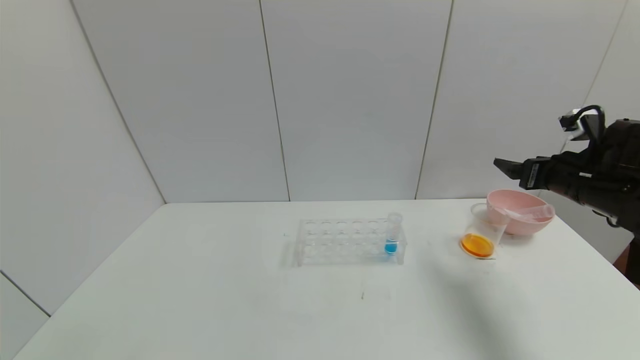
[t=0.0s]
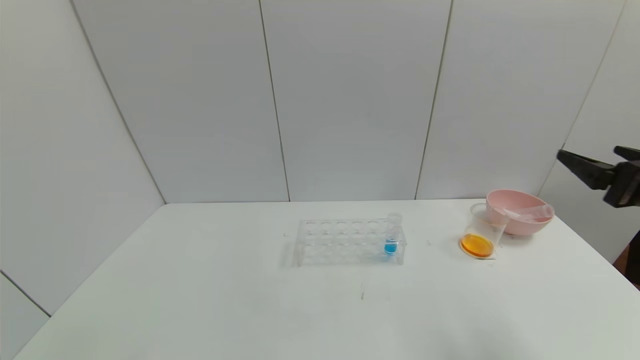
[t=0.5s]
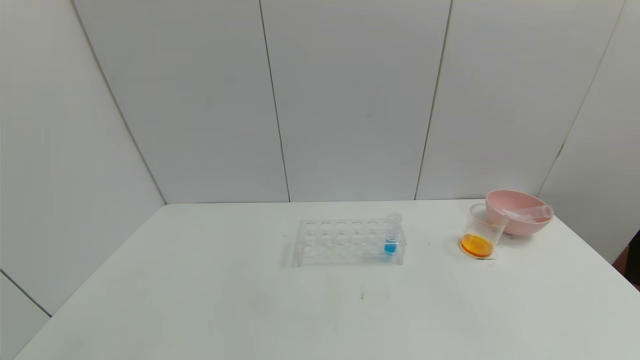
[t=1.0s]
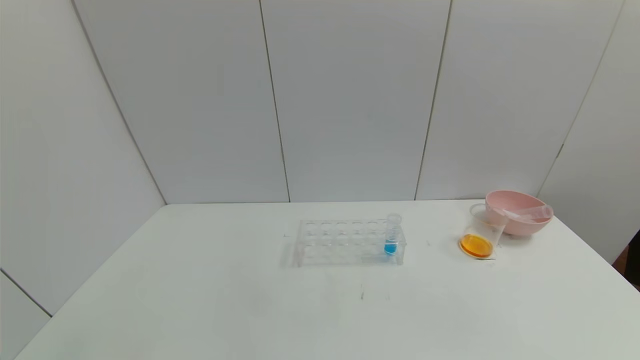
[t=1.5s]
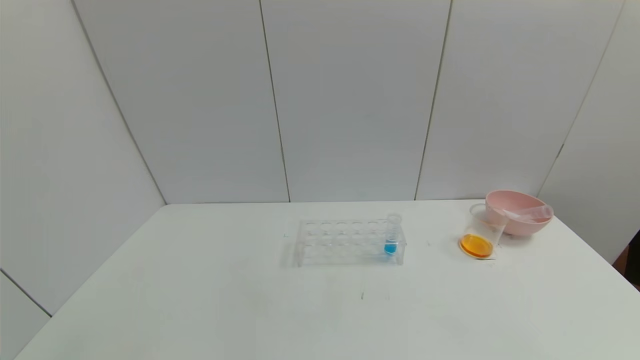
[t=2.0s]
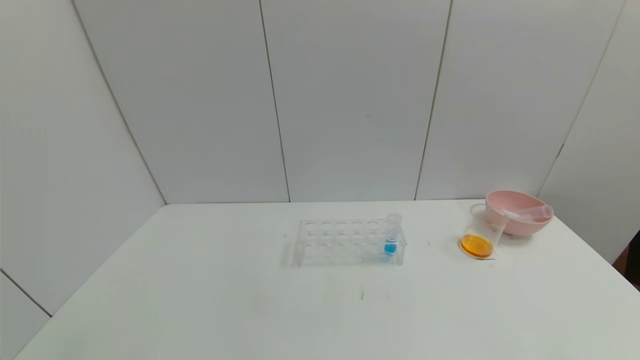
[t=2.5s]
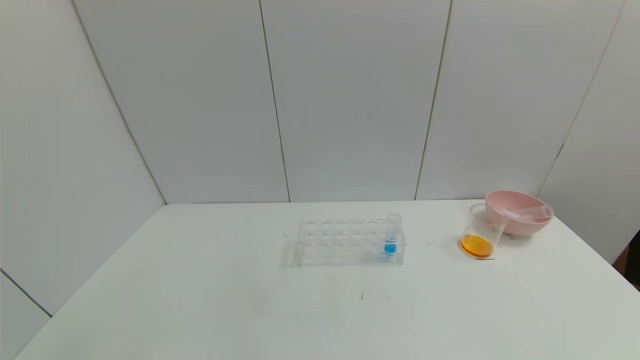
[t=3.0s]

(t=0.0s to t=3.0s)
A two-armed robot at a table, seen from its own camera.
Task of the whole recording: pick up the test tube with yellow pigment and the test tube with red pigment by grippers and pour them into the beaker.
t=0.0s - t=1.5s: The right gripper goes about 40 cm backward.

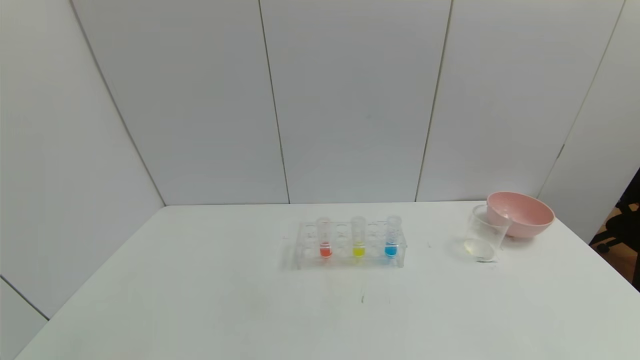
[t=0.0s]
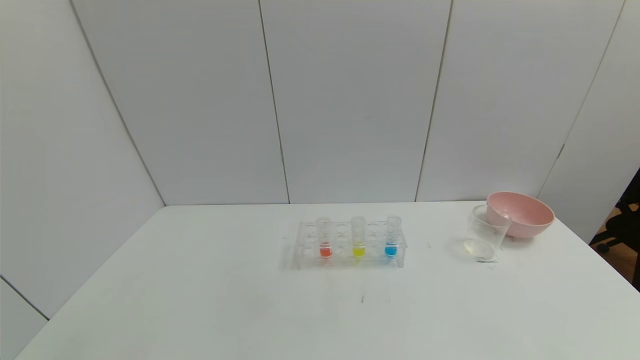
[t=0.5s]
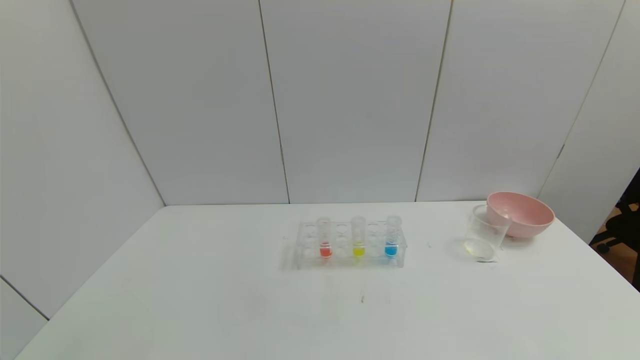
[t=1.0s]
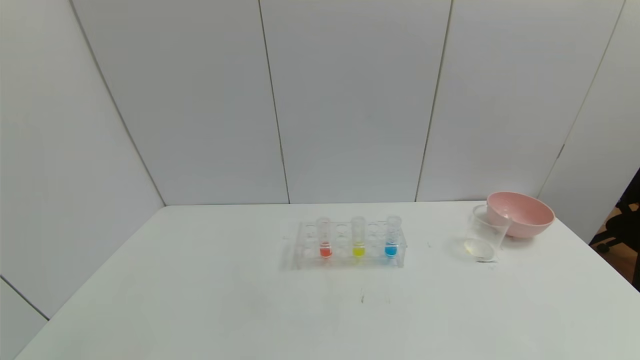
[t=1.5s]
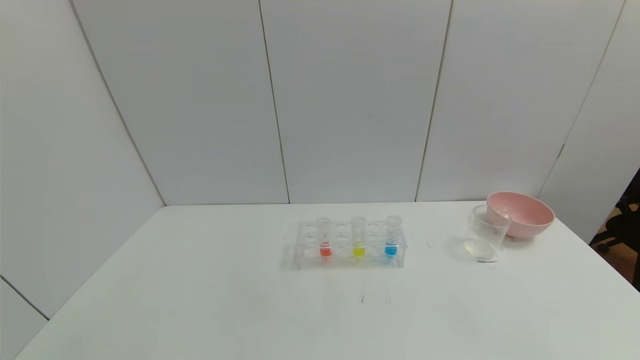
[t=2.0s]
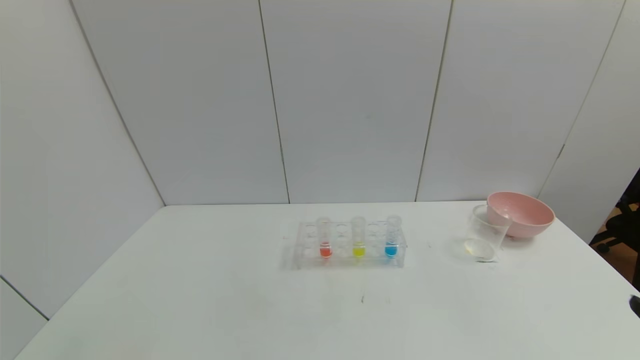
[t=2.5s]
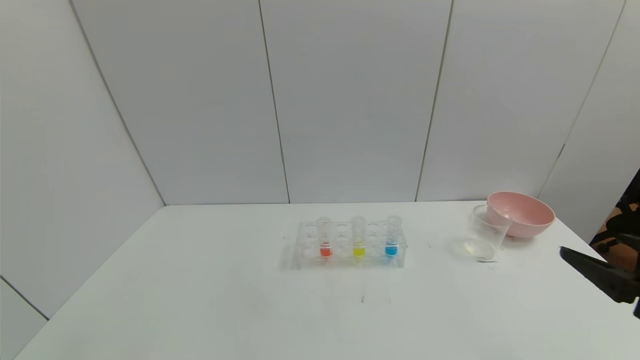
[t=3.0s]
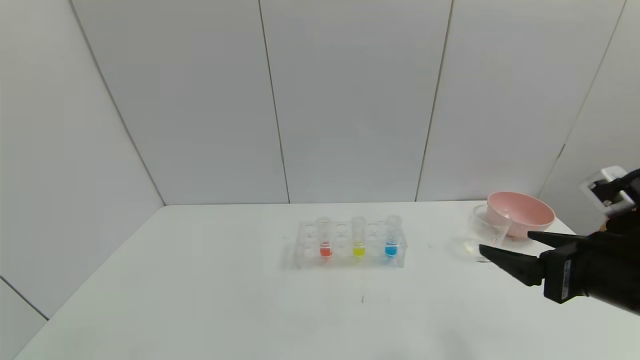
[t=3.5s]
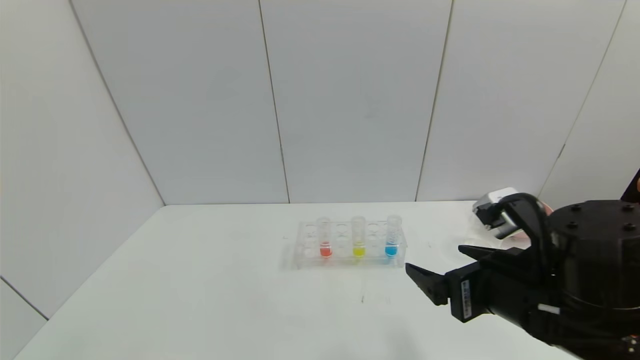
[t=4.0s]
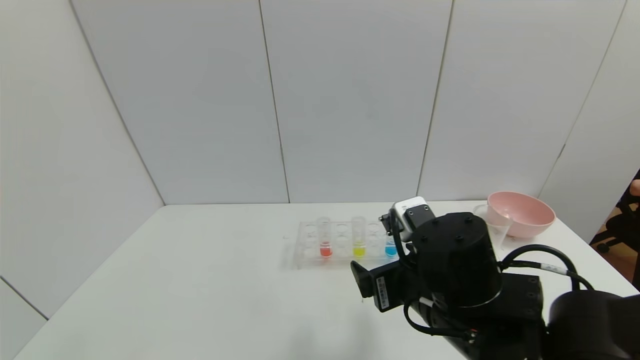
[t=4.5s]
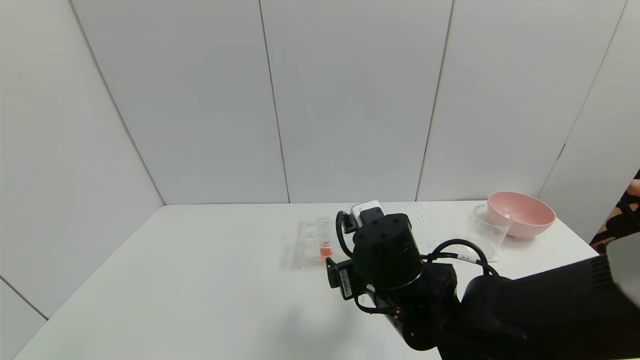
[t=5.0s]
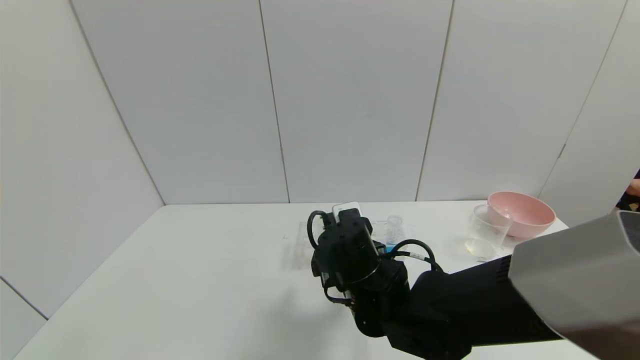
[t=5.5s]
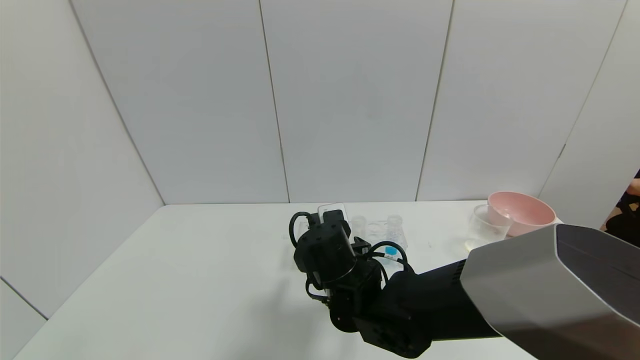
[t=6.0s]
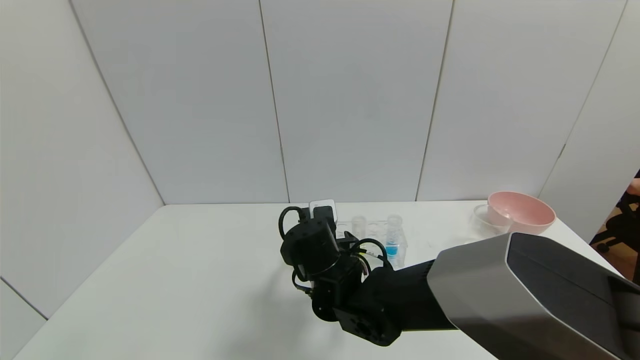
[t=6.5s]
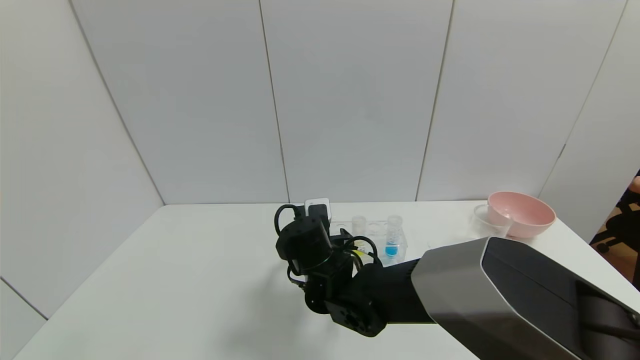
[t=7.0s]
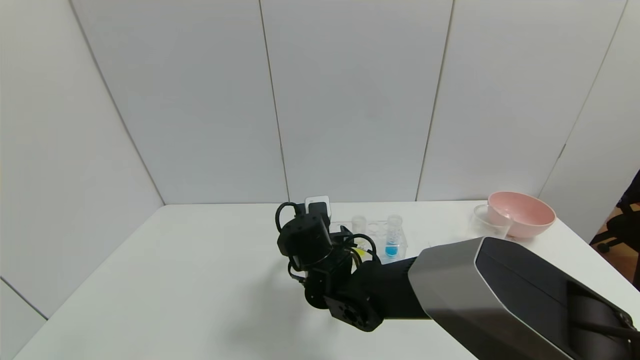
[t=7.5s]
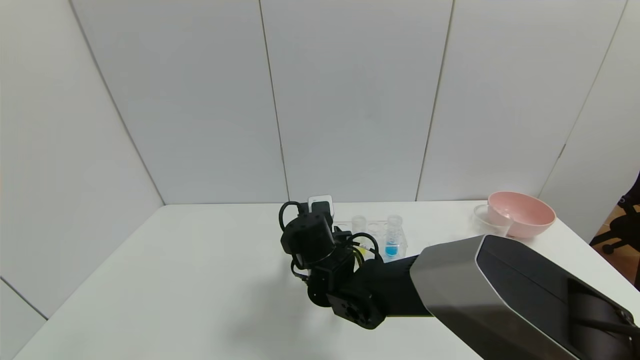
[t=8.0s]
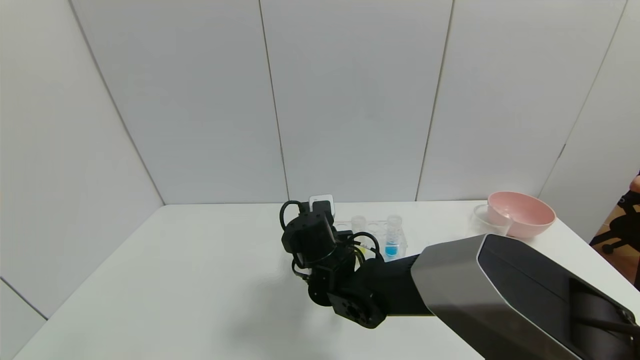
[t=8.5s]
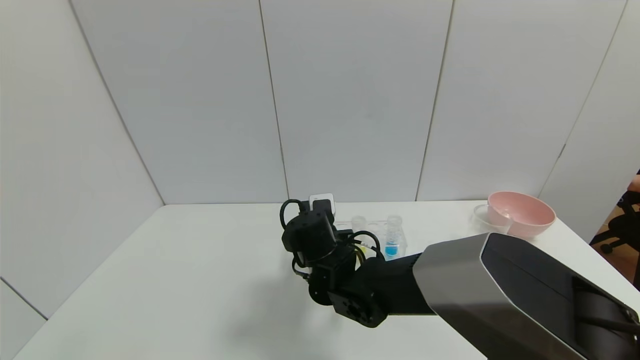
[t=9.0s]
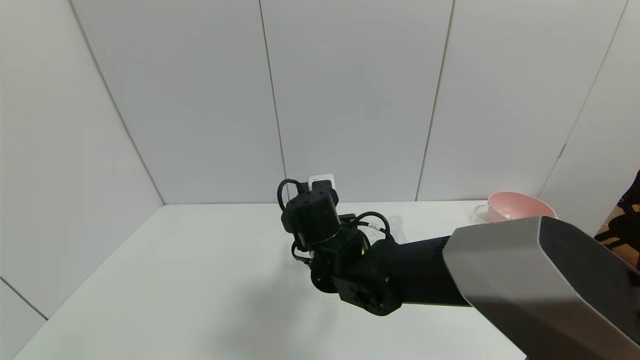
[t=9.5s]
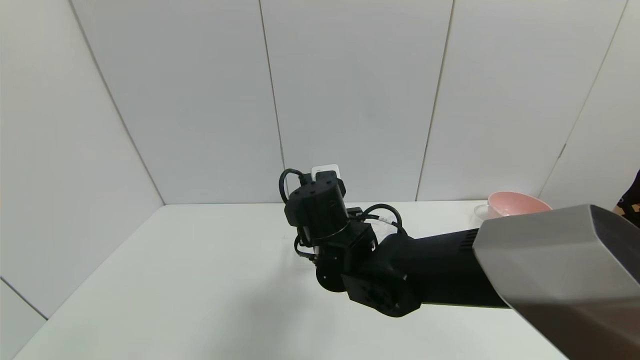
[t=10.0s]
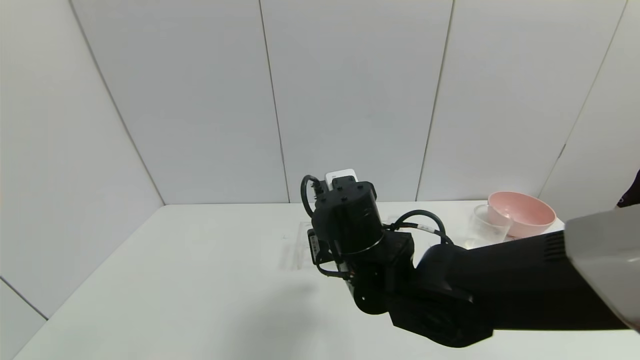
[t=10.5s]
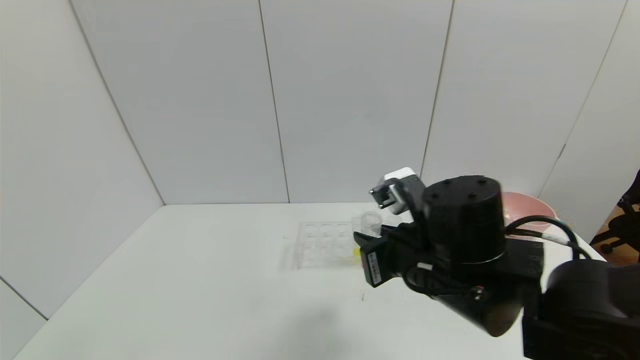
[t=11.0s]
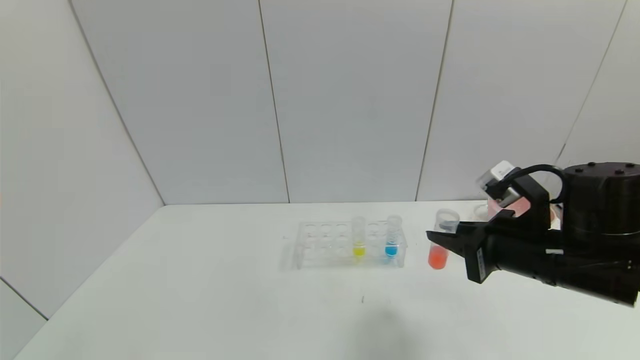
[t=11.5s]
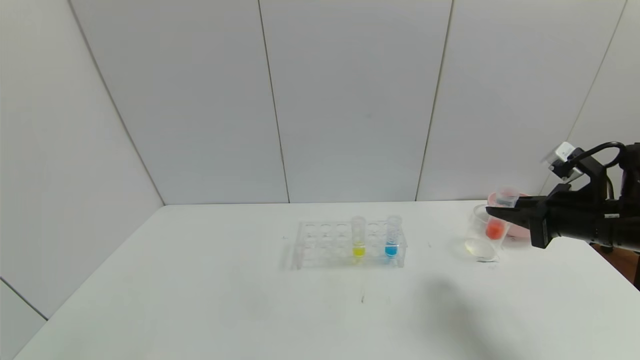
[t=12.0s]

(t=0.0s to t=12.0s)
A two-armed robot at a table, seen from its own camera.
Task of the whole recording: pick up the test tube with yellow pigment and the test tube with red pigment by grippers and pour them into the beaker.
Step, t=0.0s - t=8.0s: Grasp the red reagent with the right gripper.
t=2.0s - t=4.0s: The right gripper shifts about 25 cm forward and to the left.
t=4.0s - t=6.0s: The right gripper moves to the left, forward and downward, about 20 cm.
t=6.0s - t=8.0s: The right gripper changes place by approximately 5 cm, and closes its fingers.
t=8.0s - t=10.0s: The right gripper is displaced upward by approximately 5 cm.
t=10.0s - t=12.0s: The right gripper travels to the right by some 35 cm.

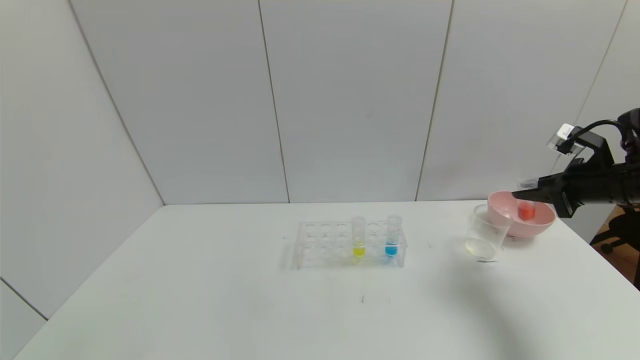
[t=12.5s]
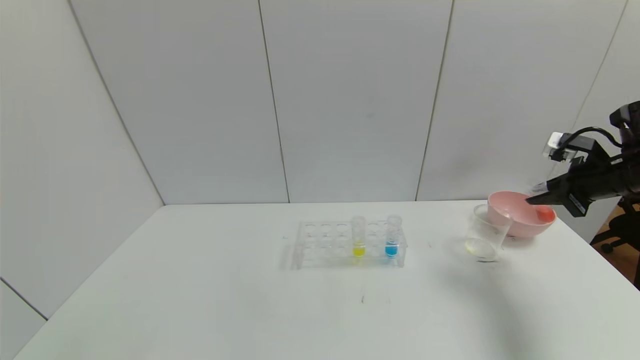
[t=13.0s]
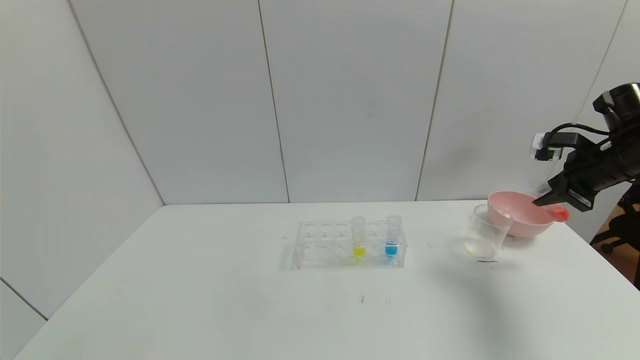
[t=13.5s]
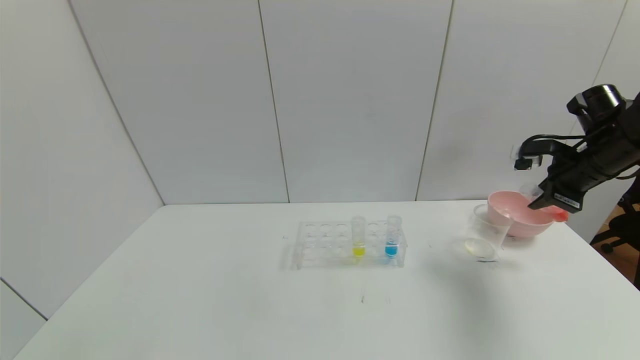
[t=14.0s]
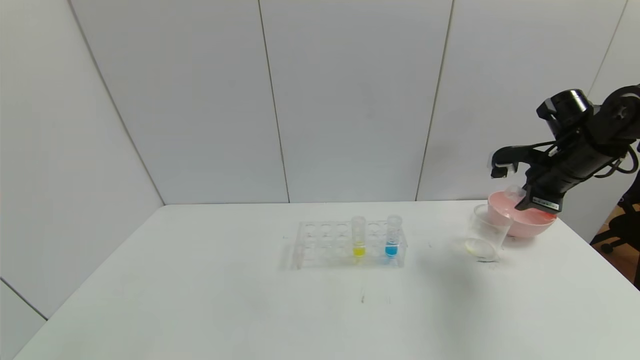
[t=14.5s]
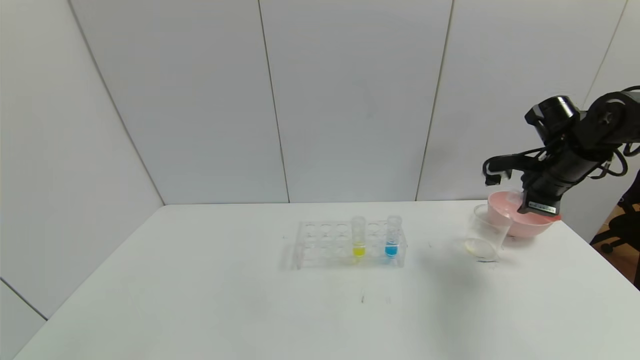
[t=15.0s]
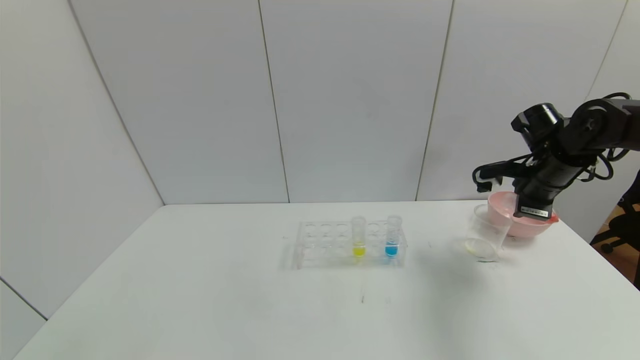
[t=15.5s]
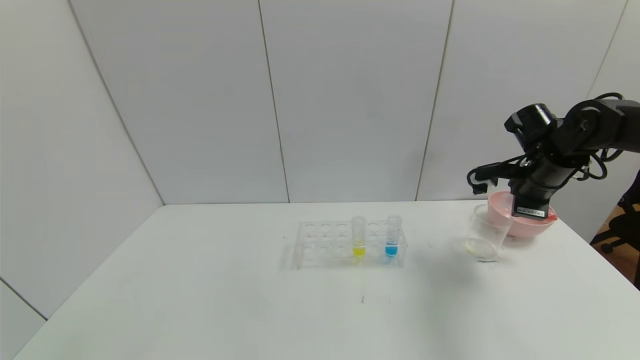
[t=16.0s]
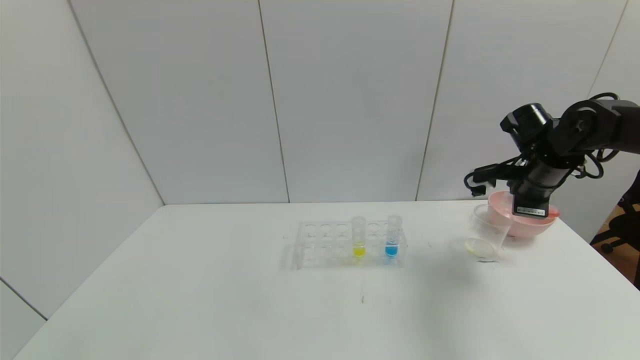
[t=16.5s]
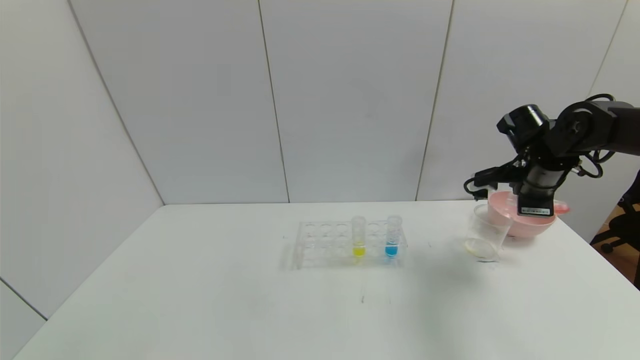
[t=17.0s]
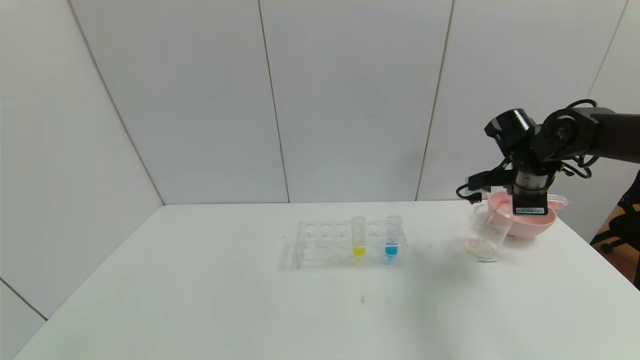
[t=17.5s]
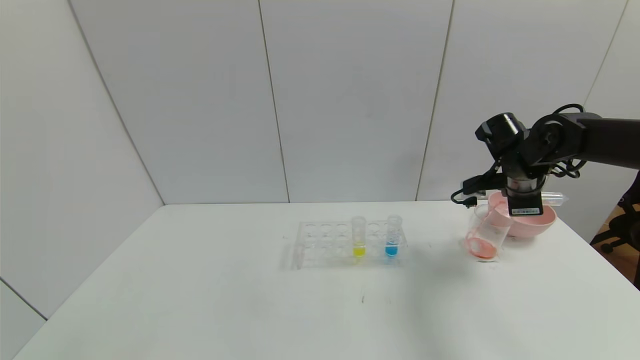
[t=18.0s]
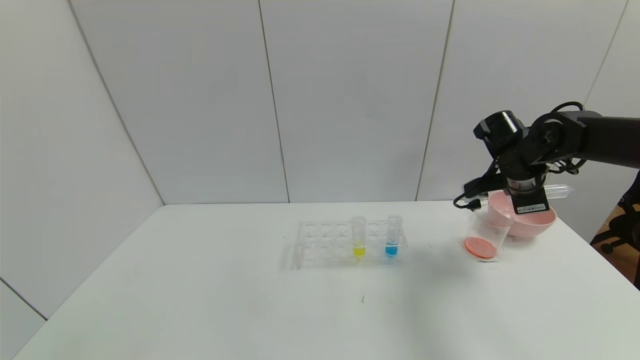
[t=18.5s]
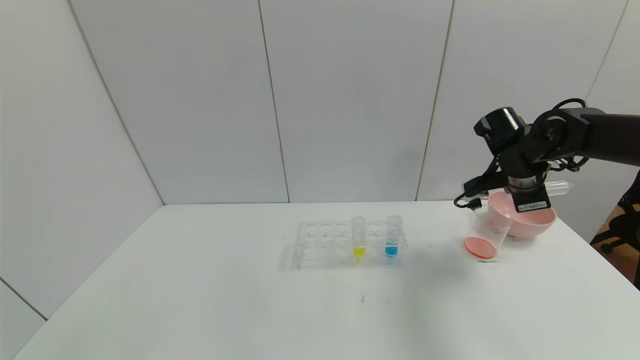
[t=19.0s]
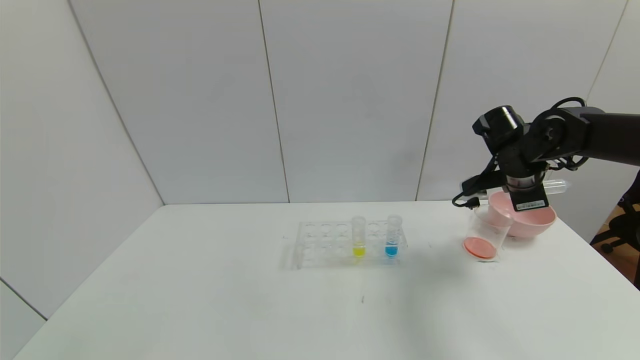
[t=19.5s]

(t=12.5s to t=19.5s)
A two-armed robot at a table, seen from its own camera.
Task of the whole recording: pick up the test tube with yellow pigment and the test tube with red pigment by grippers and pour them into the beaker.
Step, t=12.5s - t=18.5s: Pour the red reagent into the graduated cylinder with the right gripper.
t=12.5s - t=14.5s: The right gripper travels to the left by about 5 cm.
t=14.5s - t=16.0s: The grippers make only small movements.
t=16.0s - t=17.5s: The grippers move only a little.
t=17.5s - t=19.5s: The grippers move only a little.
